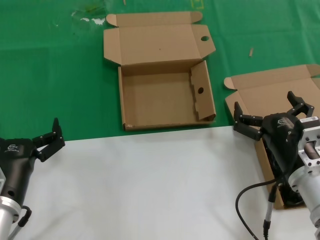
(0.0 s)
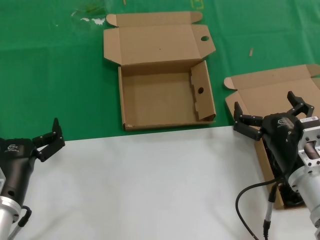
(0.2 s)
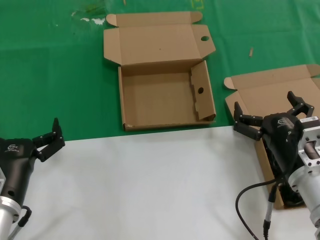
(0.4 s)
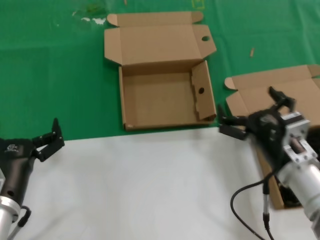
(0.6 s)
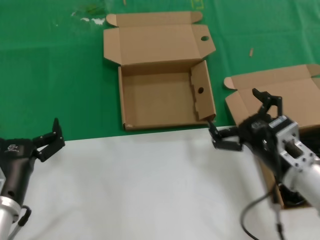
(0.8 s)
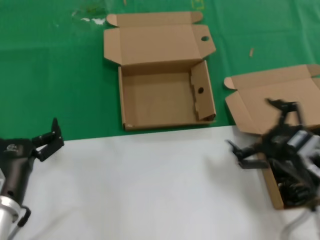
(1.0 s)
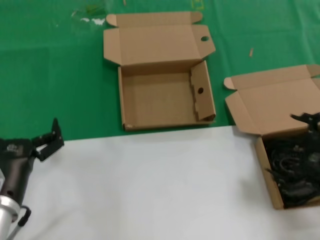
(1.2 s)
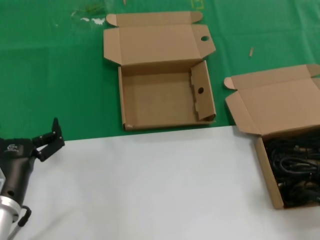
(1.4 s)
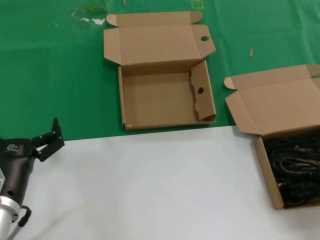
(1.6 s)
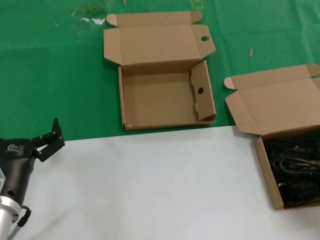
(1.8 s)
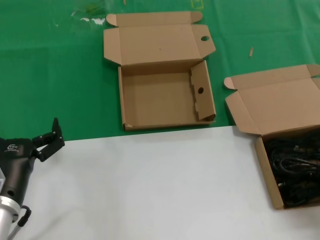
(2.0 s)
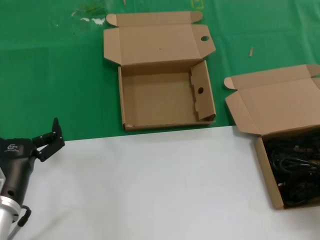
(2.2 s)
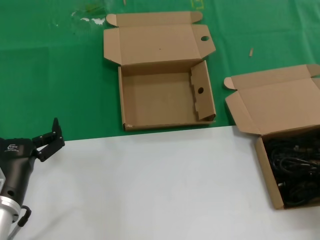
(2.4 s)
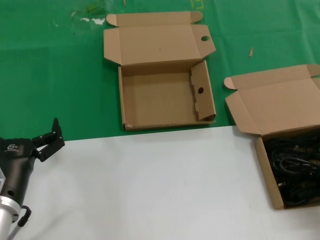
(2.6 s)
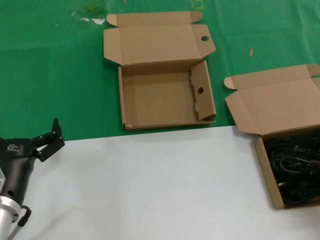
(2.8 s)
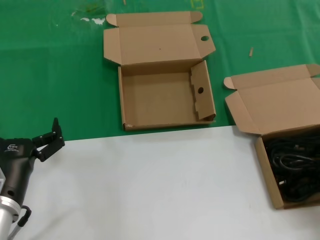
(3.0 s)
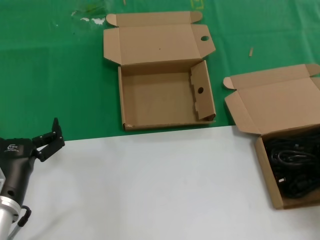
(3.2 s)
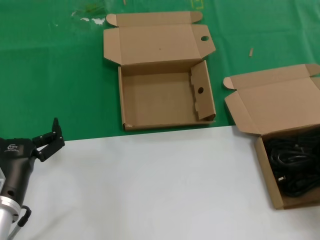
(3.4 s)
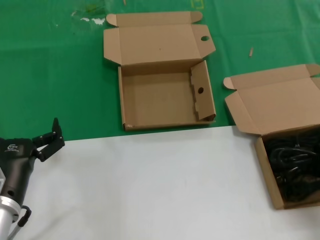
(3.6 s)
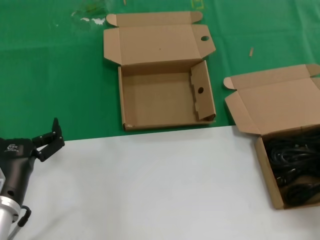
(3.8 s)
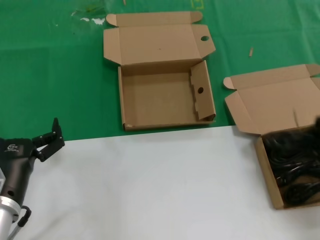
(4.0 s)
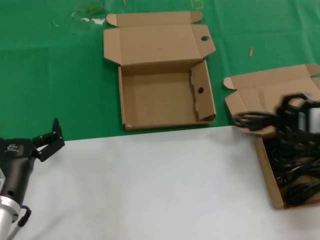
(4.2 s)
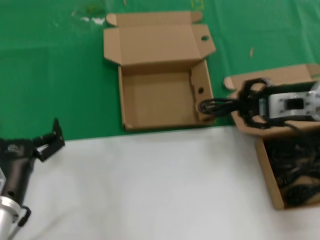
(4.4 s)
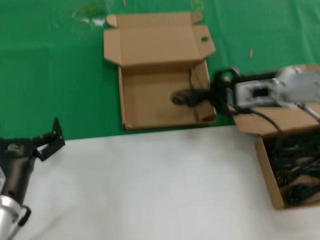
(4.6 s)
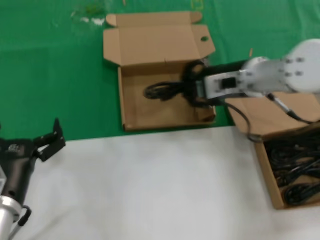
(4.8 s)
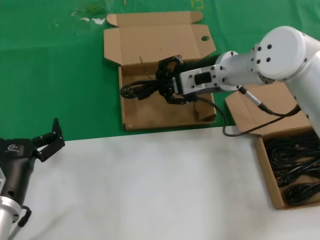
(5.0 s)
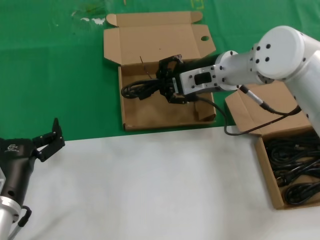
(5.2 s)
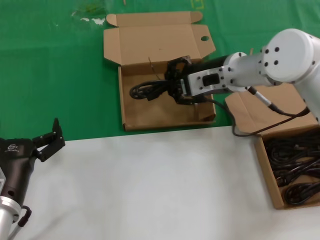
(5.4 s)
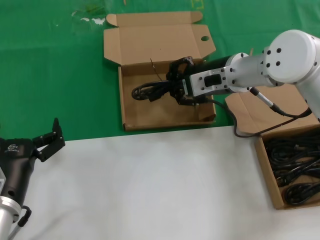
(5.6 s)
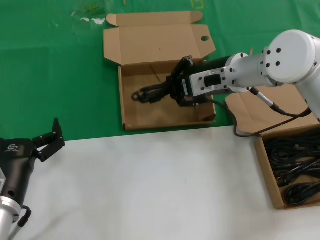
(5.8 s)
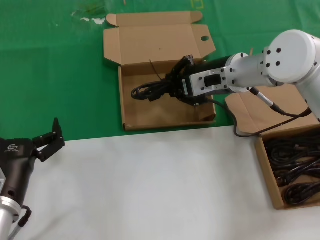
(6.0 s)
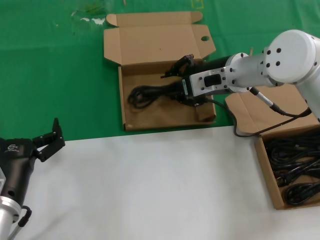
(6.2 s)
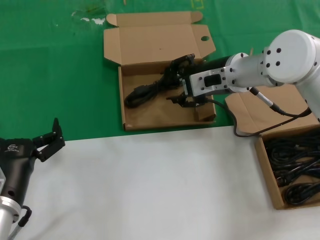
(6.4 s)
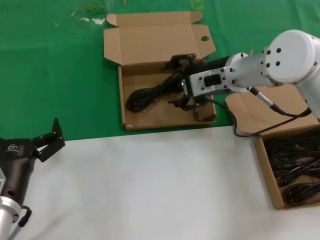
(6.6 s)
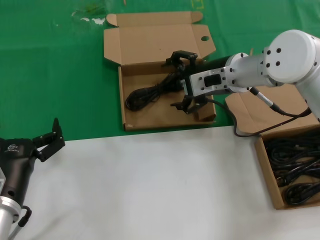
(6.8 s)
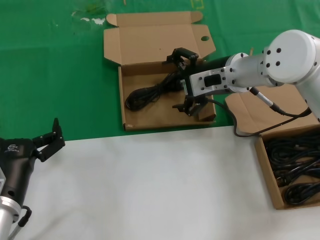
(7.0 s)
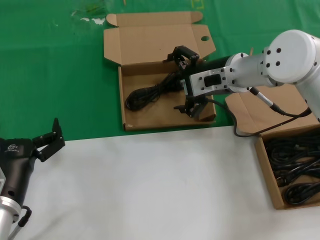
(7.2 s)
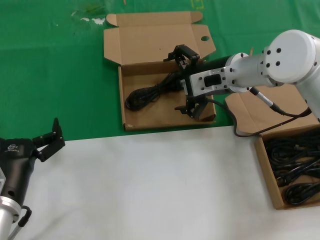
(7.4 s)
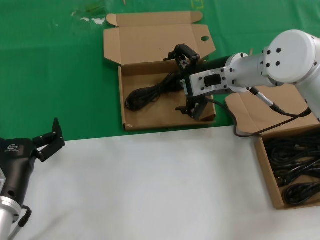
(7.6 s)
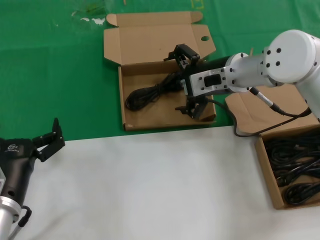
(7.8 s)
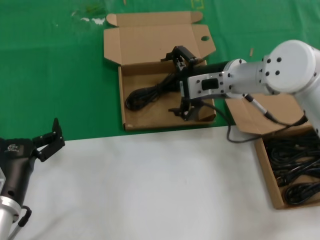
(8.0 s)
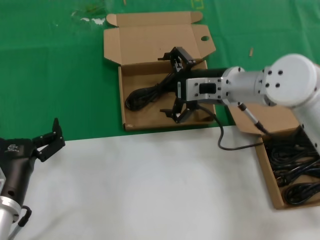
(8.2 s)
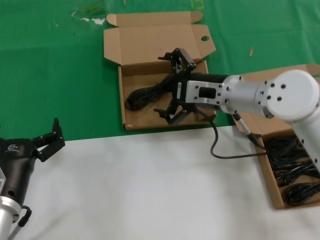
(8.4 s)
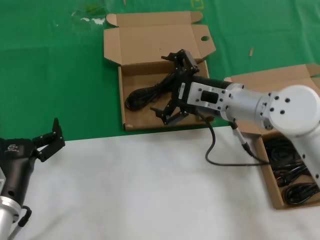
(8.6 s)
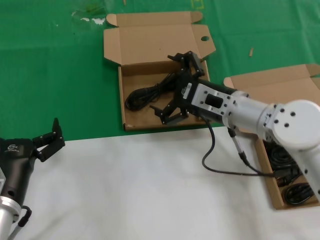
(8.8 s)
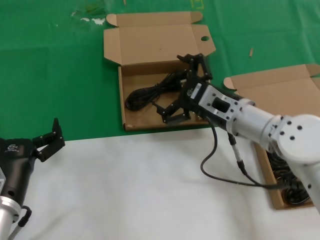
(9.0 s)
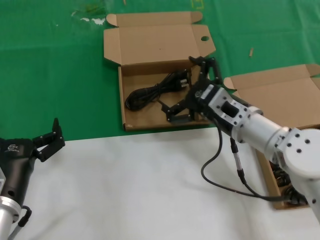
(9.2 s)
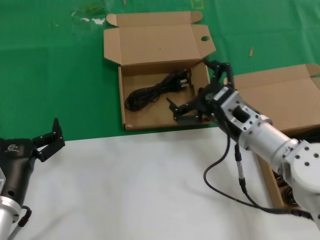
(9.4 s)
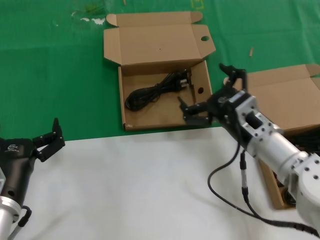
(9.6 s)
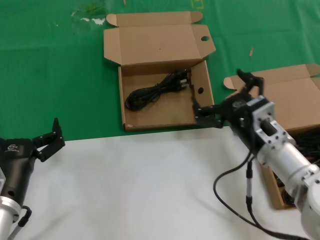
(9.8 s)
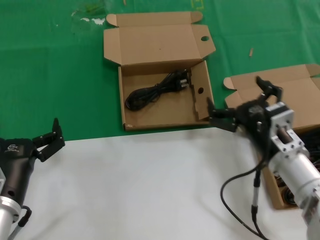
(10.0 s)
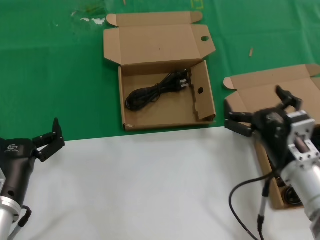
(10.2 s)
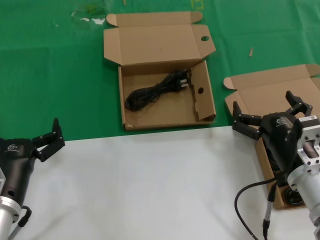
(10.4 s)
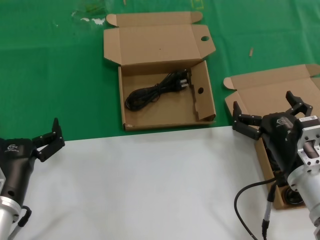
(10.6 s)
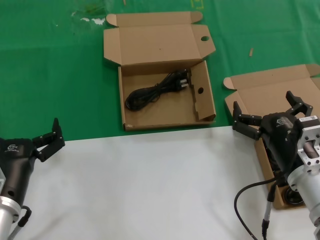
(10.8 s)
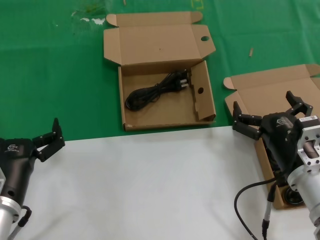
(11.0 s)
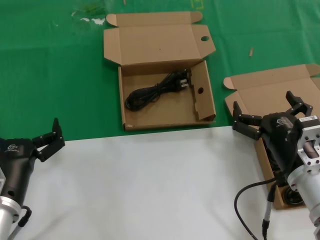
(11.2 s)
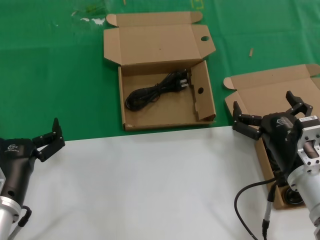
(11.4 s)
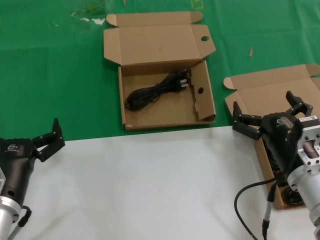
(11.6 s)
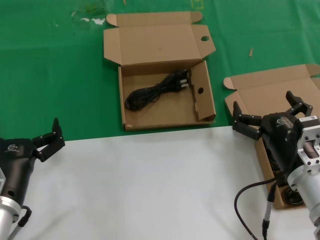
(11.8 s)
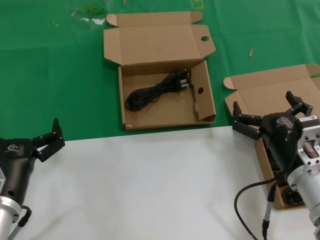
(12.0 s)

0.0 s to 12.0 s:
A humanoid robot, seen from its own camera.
Task of the whole recording: take the parts from the box containing them and put them into an empty box.
Step, 0.0 to 3.6 s: Grasp the data cable.
Step, 3.8 to 6.8 s: Place the data cable in the another box.
0.0 to 1.6 s: The right hand heads to the right and upward, covering about 20 cm.
1.6 to 3.0 s: The right hand goes approximately 5 cm forward.
3.0 to 4.4 s: The right hand shifts approximately 15 cm to the left, forward and upward.
4.4 to 6.0 s: The right hand is displaced to the left and forward by some 15 cm.
6.0 to 7.6 s: Both hands stay put.
7.6 to 9.0 s: The right hand moves downward and backward, some 10 cm.
9.0 to 10.4 s: The right hand shifts some 15 cm backward, downward and to the right.
10.4 to 12.0 s: Both hands stay put.

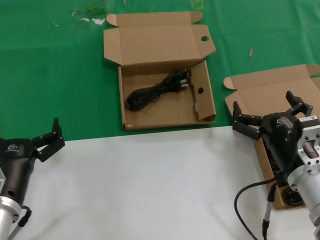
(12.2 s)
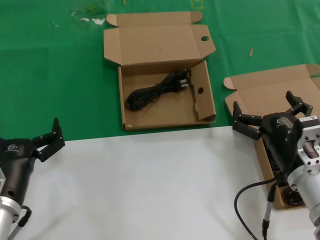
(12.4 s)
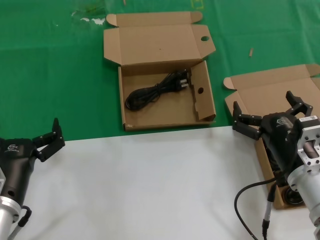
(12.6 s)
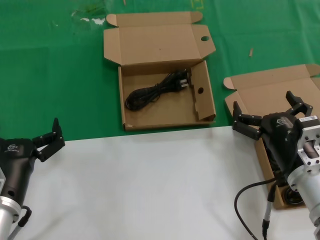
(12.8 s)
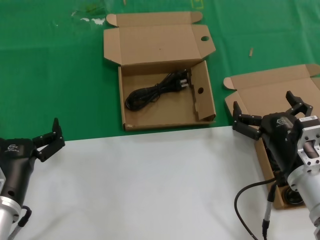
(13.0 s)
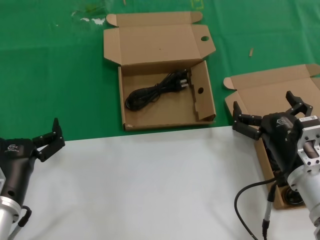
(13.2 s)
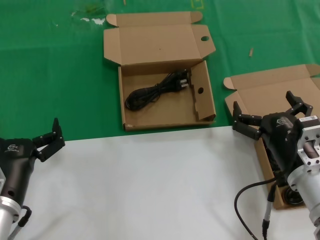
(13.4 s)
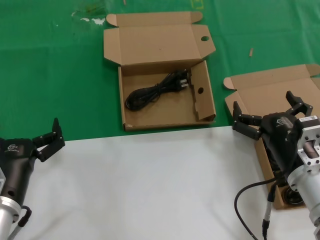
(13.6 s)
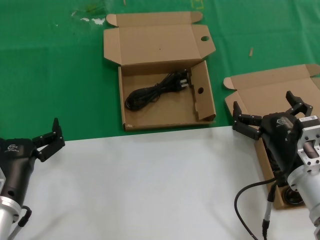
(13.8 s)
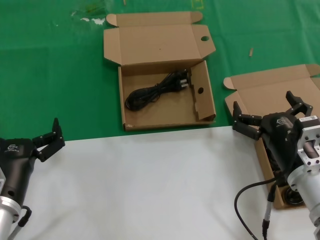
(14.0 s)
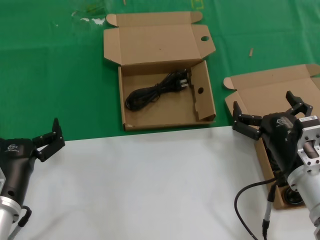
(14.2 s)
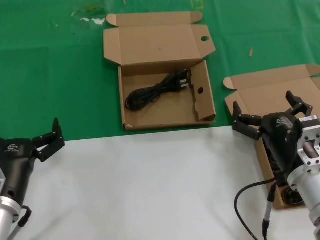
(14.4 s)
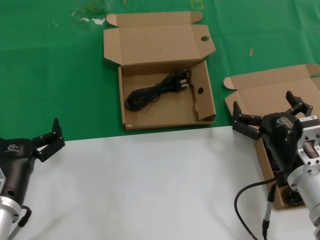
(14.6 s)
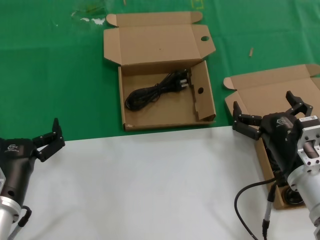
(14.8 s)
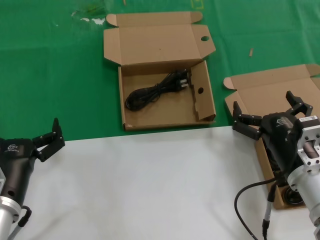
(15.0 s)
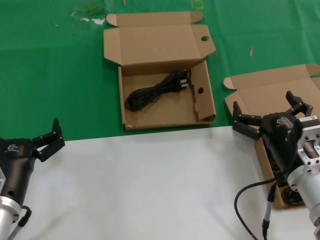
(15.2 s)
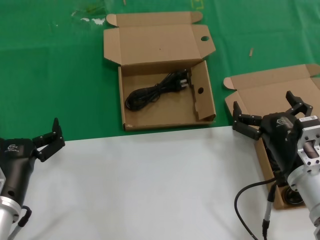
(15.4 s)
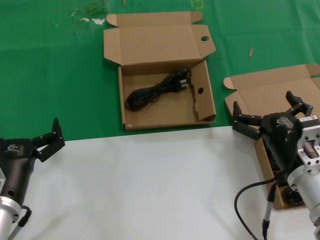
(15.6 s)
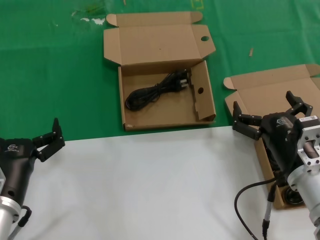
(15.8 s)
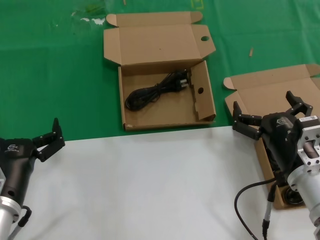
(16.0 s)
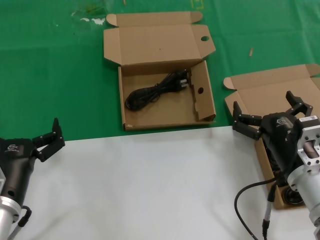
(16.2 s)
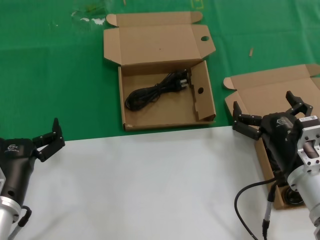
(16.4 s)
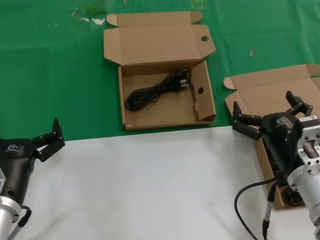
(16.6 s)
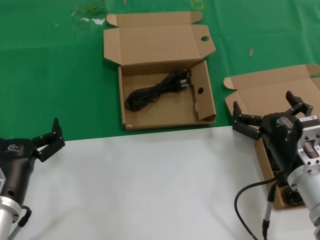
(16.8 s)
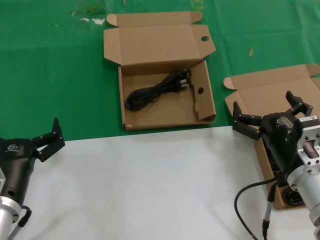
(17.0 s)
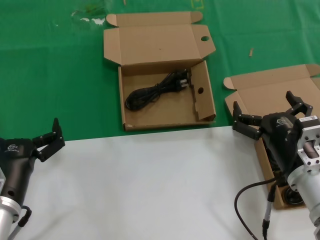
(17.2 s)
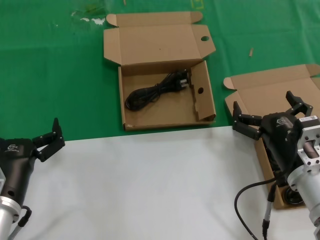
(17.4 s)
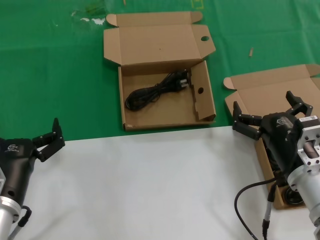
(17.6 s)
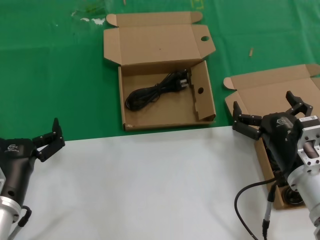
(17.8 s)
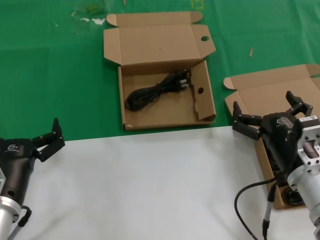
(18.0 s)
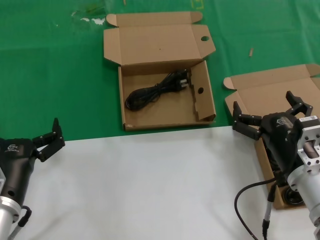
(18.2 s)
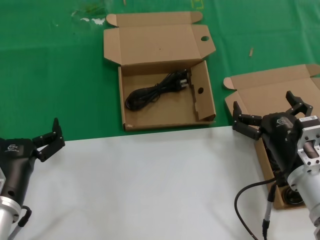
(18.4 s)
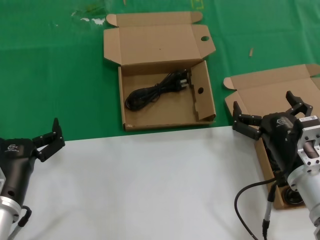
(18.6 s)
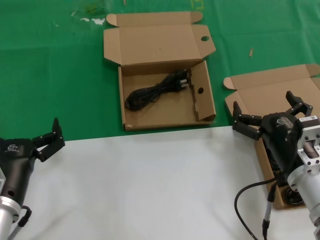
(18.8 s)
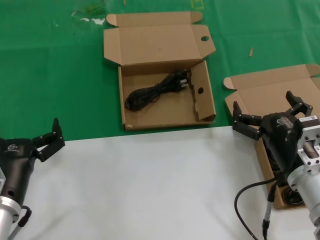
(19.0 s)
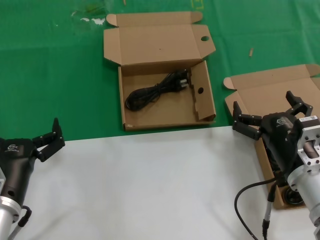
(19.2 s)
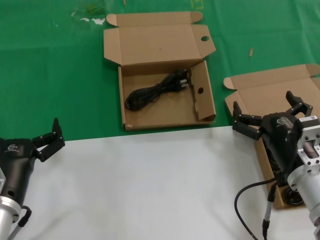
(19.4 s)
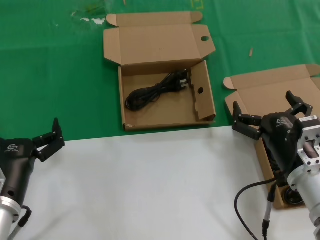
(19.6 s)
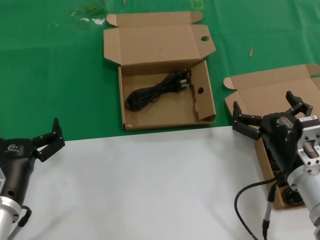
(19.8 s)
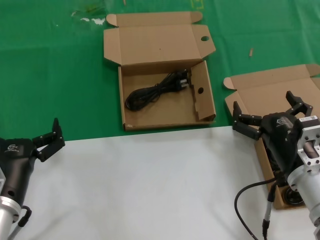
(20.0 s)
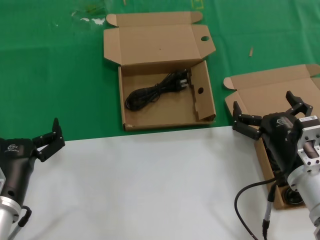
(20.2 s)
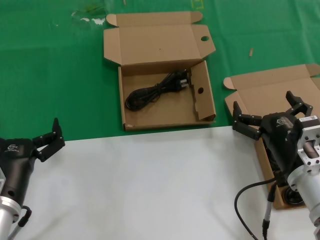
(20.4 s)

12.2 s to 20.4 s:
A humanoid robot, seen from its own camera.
Task of the whole recording: take the parts from the box containing them and put them into an empty box.
12.2 to 20.4 s: The two hands keep their place.

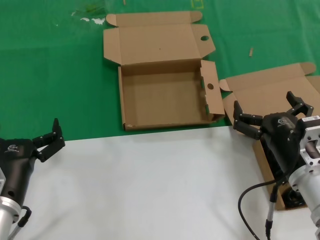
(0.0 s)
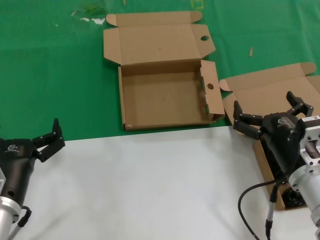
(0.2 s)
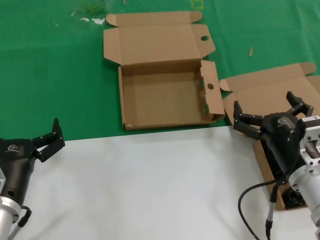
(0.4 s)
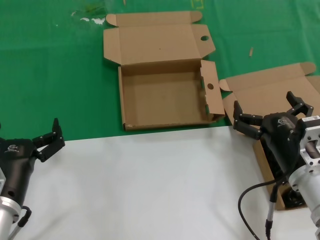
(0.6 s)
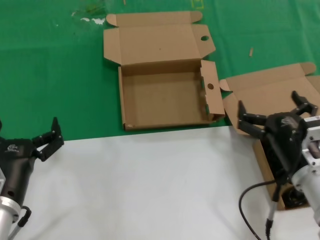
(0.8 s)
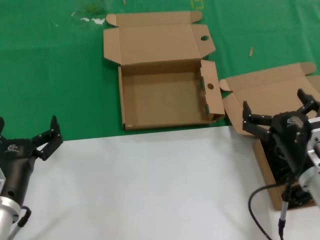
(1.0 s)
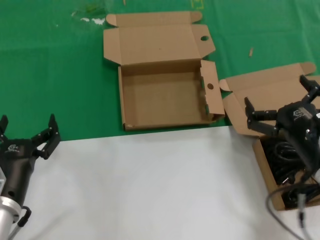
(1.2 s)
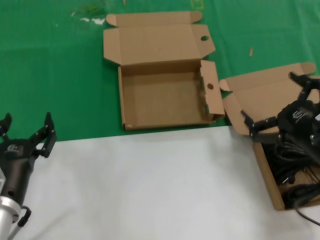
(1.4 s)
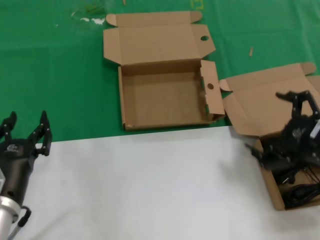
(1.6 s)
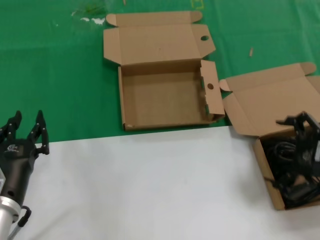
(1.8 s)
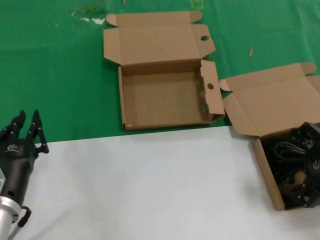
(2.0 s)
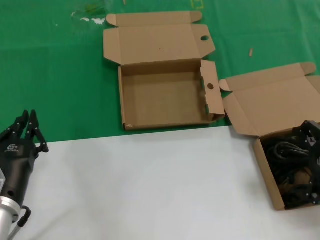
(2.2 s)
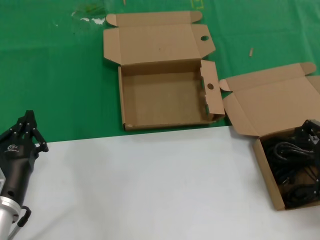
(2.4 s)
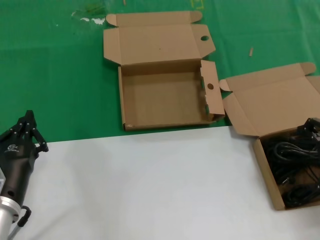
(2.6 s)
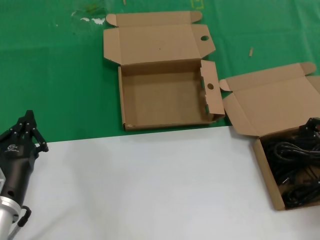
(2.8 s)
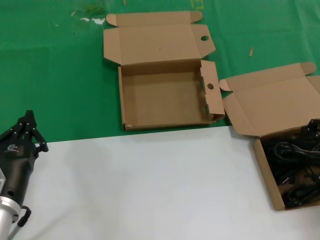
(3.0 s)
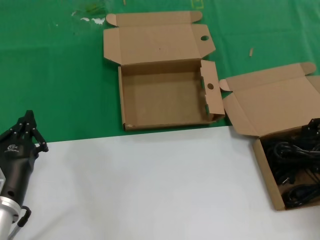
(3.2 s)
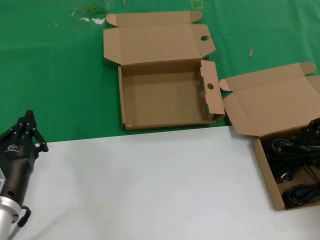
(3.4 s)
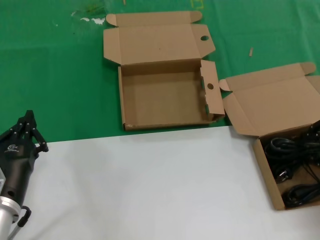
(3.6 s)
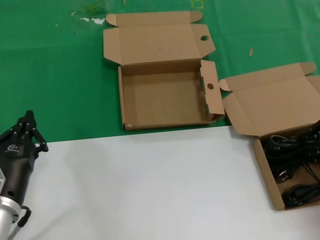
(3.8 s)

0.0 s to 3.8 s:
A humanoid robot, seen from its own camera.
Task of the whole recording: take the parts from the box containing them and put them into an empty box.
Step, 0.0 to 3.4 s: Grasp the data cable.
0.0 to 1.2 s: The hands move only a little.
1.2 to 2.6 s: The right hand moves to the right and upward, approximately 15 cm.
